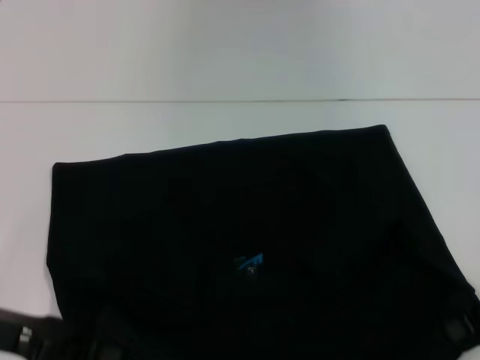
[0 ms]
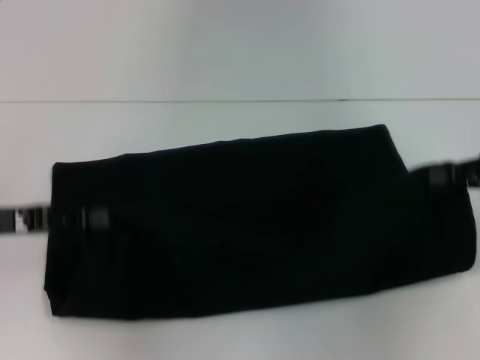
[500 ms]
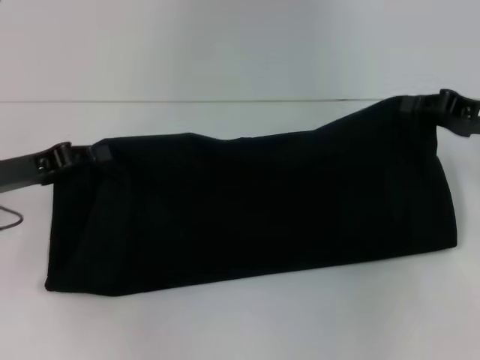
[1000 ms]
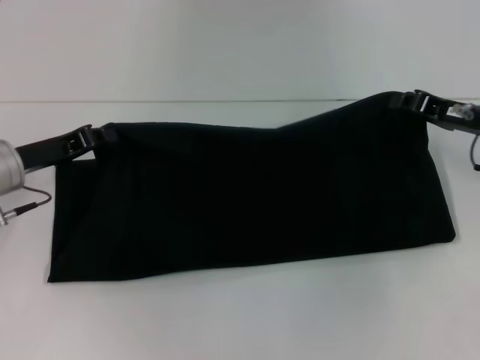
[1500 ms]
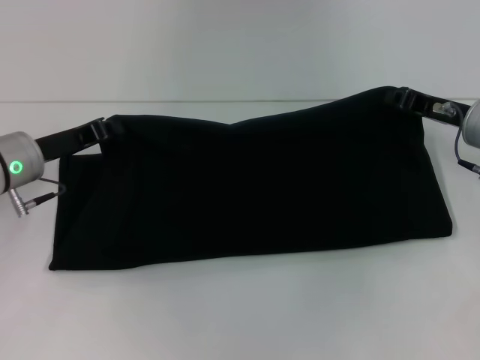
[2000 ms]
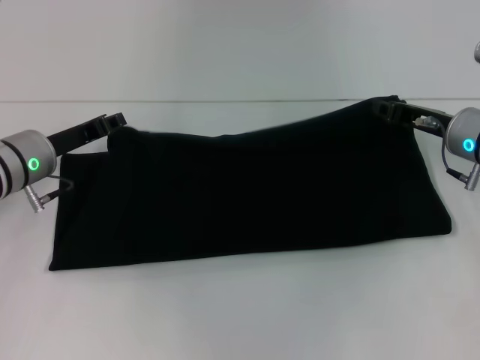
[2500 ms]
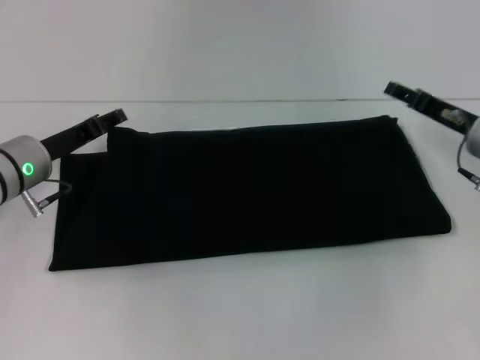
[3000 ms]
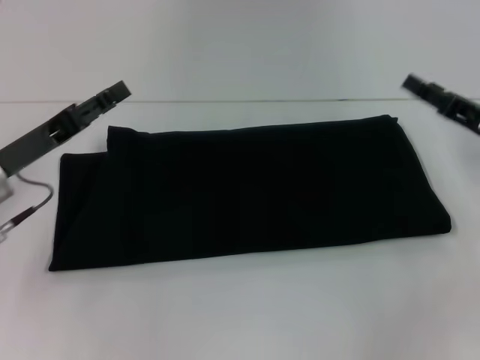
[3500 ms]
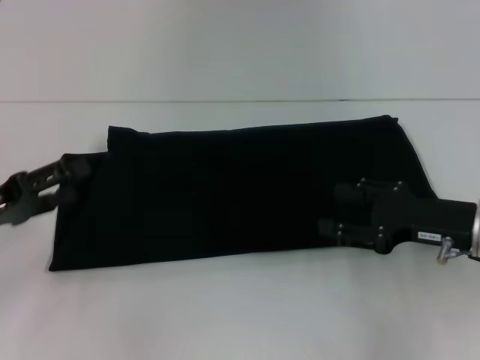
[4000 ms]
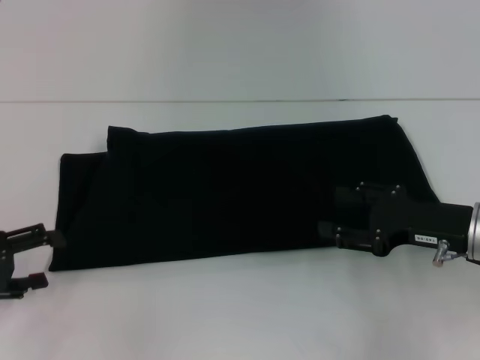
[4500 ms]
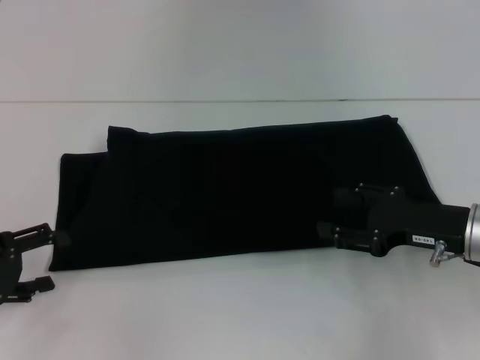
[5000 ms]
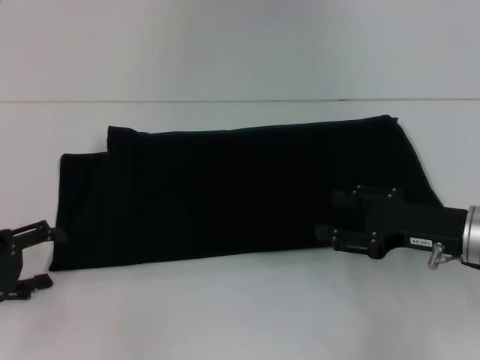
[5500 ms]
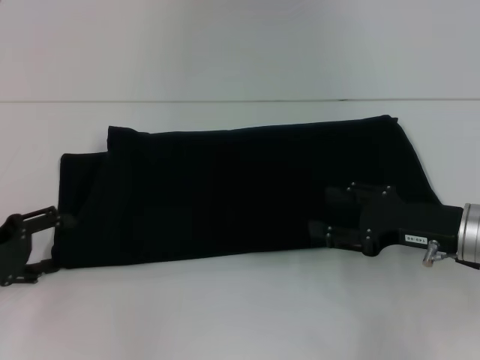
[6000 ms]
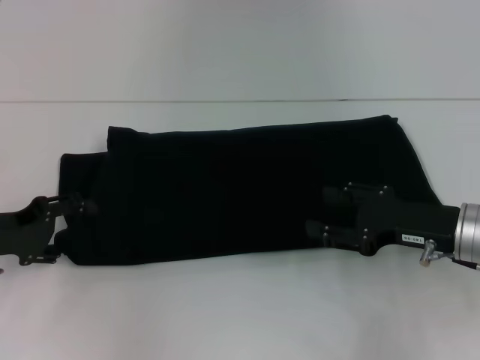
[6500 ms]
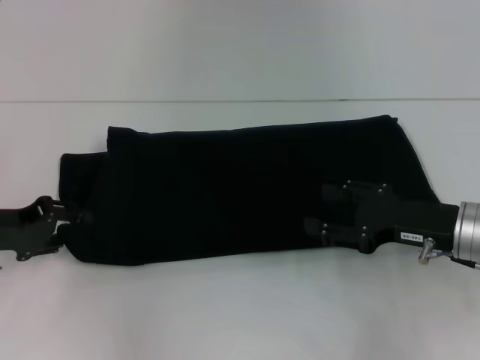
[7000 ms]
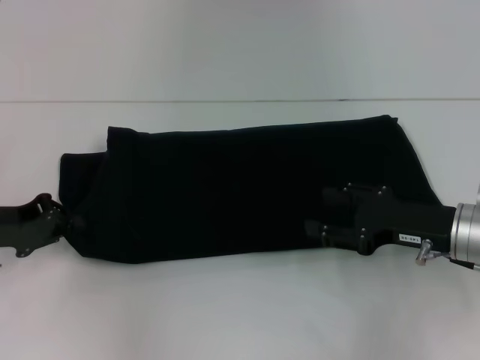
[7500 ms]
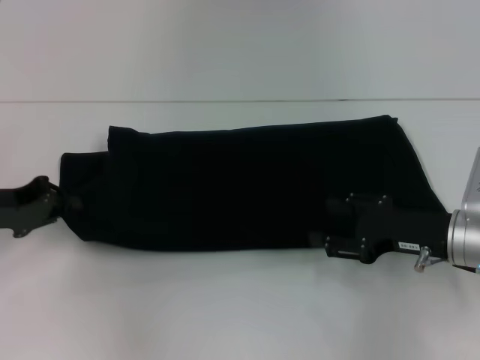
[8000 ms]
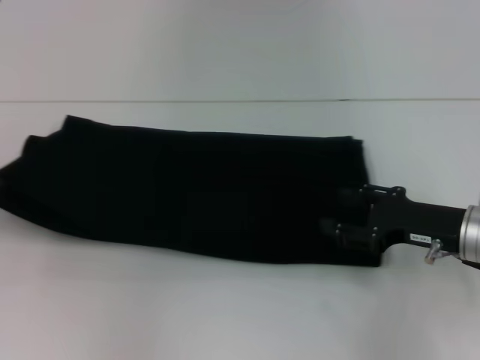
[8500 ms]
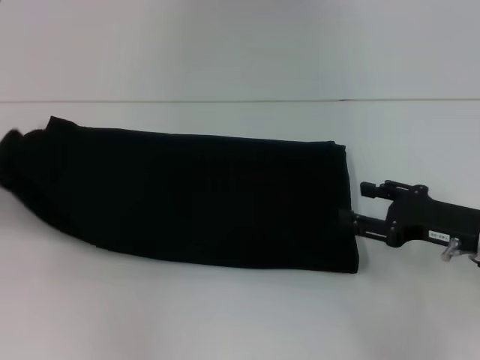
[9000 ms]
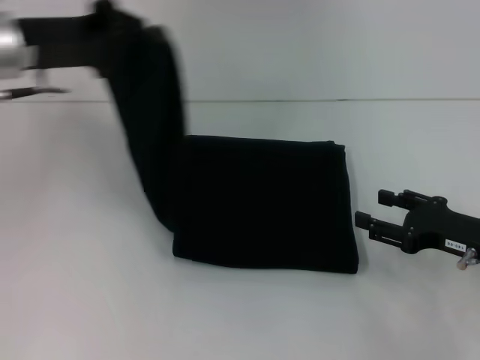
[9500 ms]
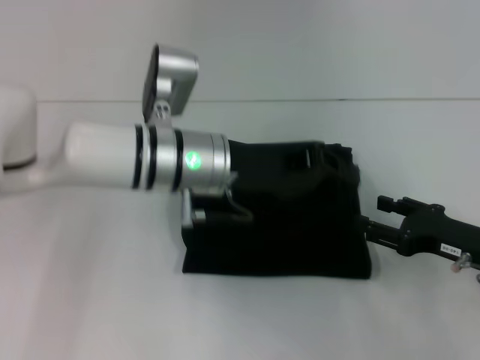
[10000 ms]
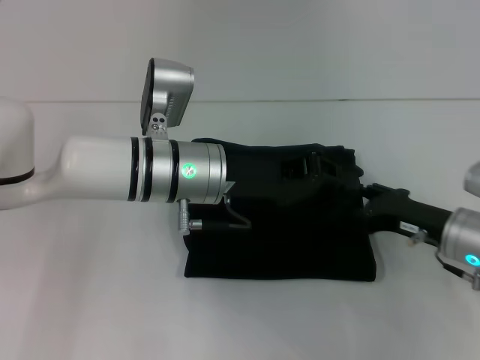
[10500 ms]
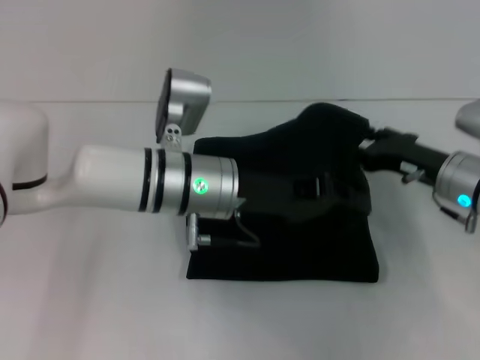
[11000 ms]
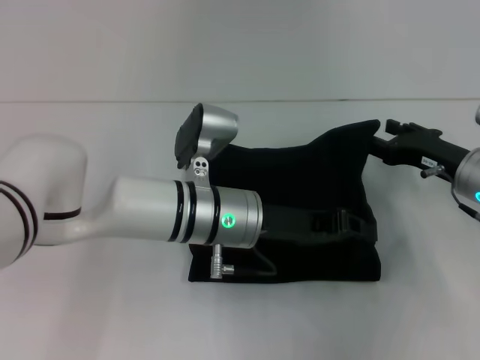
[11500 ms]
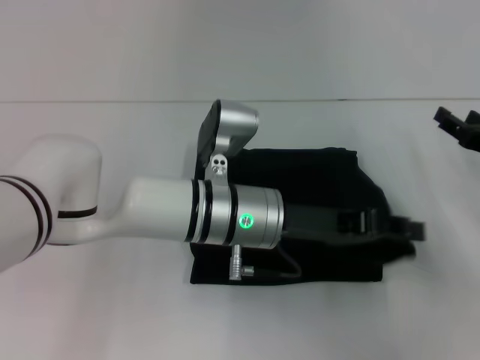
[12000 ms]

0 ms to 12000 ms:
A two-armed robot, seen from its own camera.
Step, 0 ms to 3000 ms: Fold the clothes with your right hand.
0 ms to 2000 ms: The left gripper goes roughly 15 cm forward. Meanwhile the right gripper goes some 15 cm forward and to the left.
2000 ms to 4000 ms: The left gripper moves backward and to the left, about 10 cm, and opens up, while the right gripper is displaced backward by about 10 cm, and opens.
6000 ms to 8000 ms: The left gripper shifts by roughly 5 cm, and closes.
8000 ms to 10000 ms: The right gripper moves approximately 5 cm; the left gripper heads to the right, covering roughly 25 cm.
10000 ms to 12000 ms: The right gripper shifts some 5 cm forward, while the left gripper moves to the right, about 5 cm.

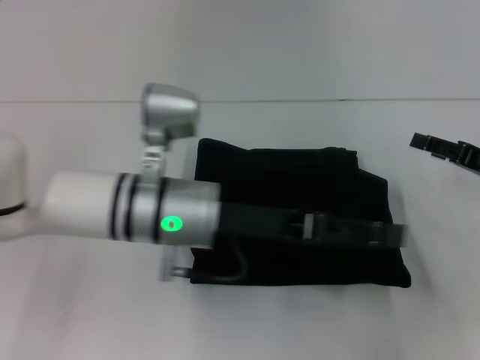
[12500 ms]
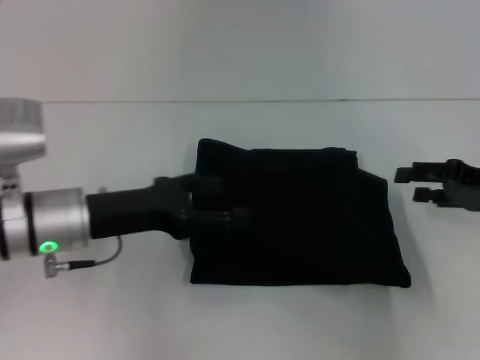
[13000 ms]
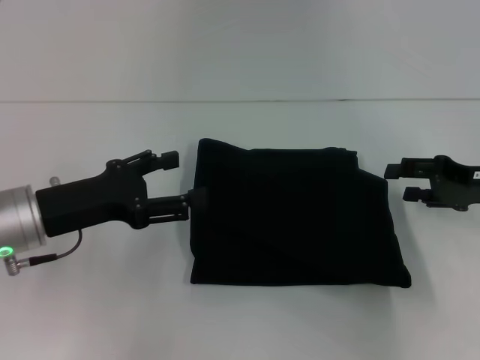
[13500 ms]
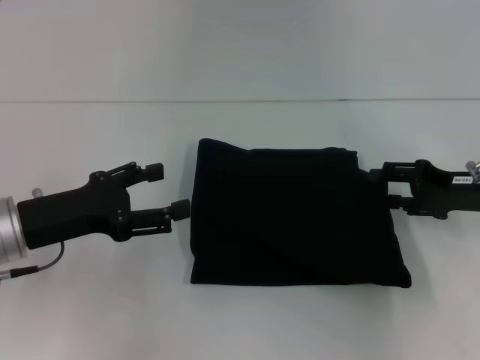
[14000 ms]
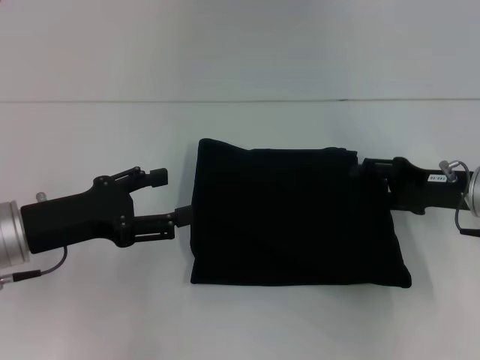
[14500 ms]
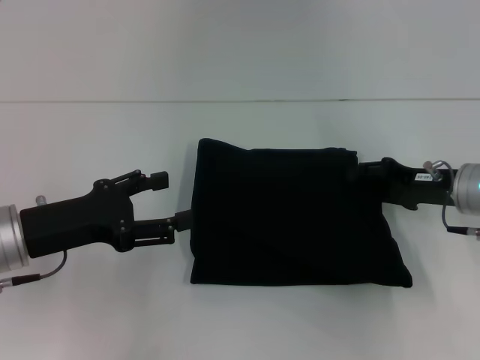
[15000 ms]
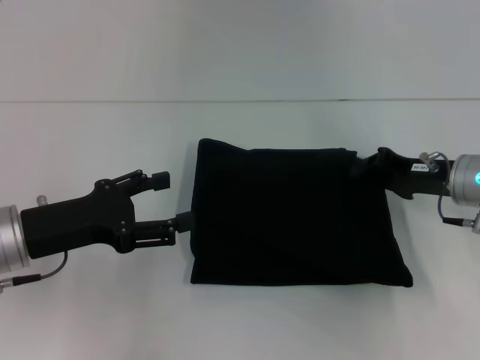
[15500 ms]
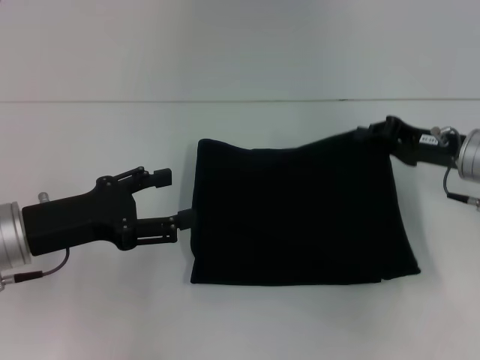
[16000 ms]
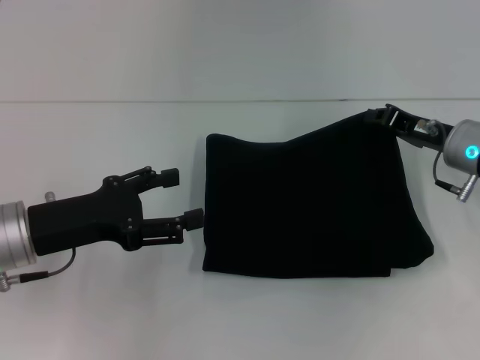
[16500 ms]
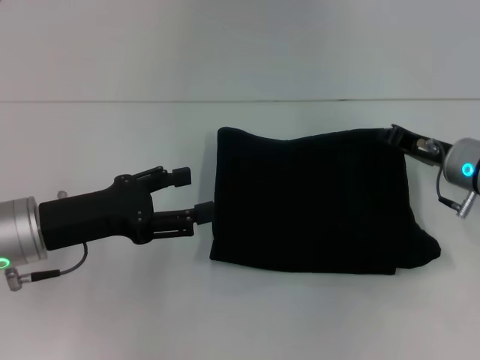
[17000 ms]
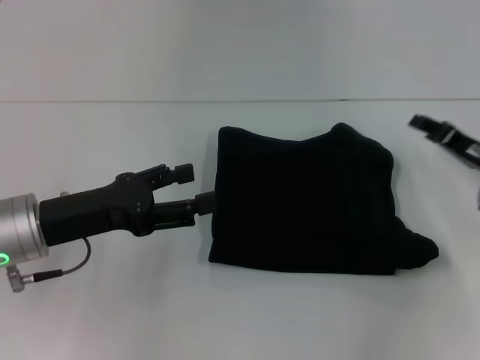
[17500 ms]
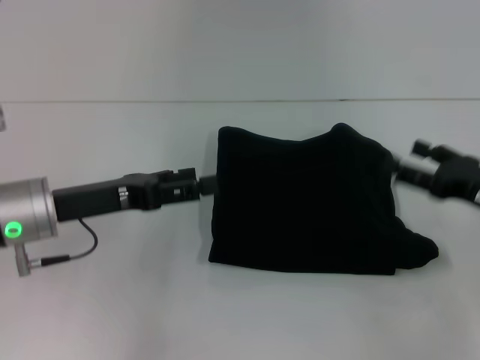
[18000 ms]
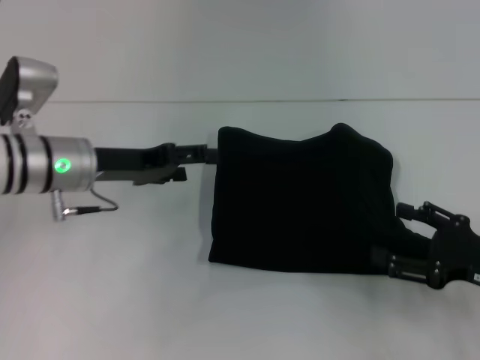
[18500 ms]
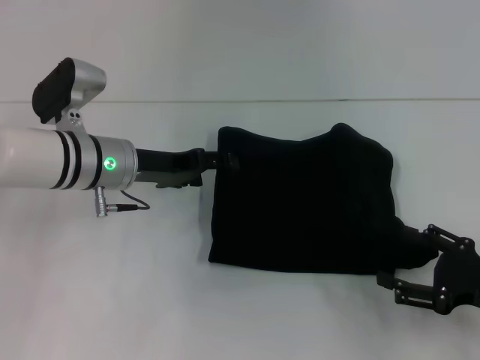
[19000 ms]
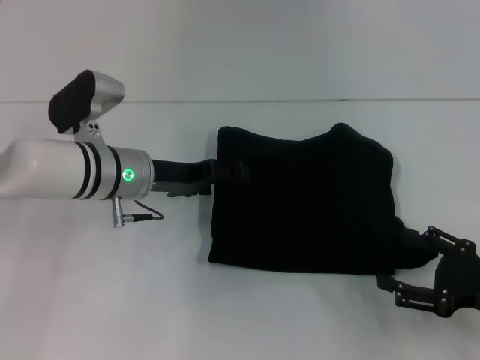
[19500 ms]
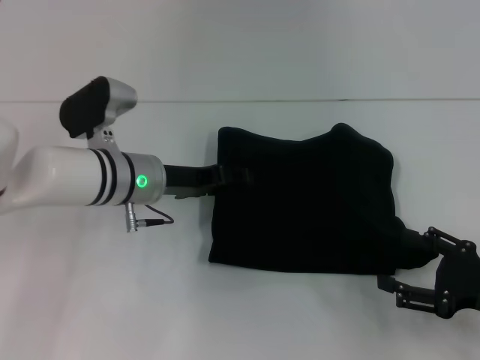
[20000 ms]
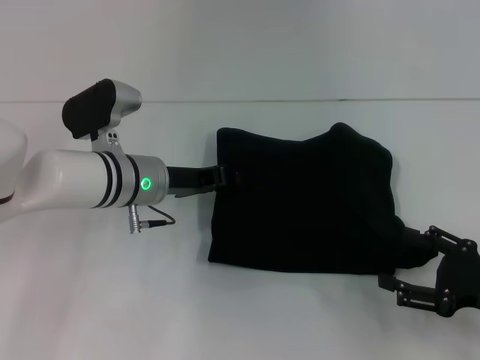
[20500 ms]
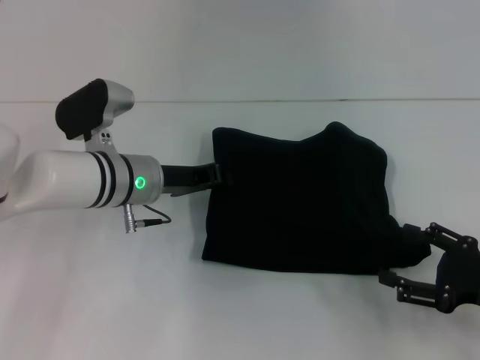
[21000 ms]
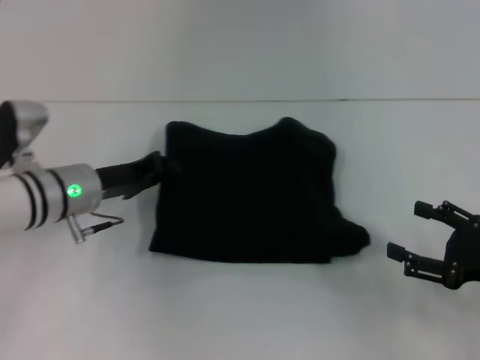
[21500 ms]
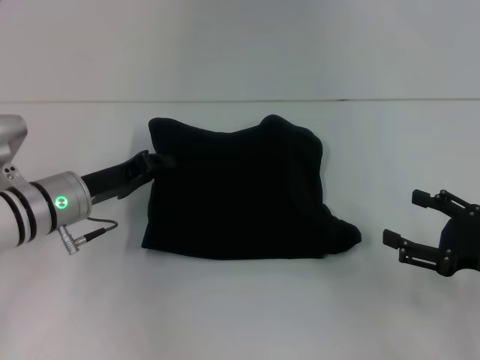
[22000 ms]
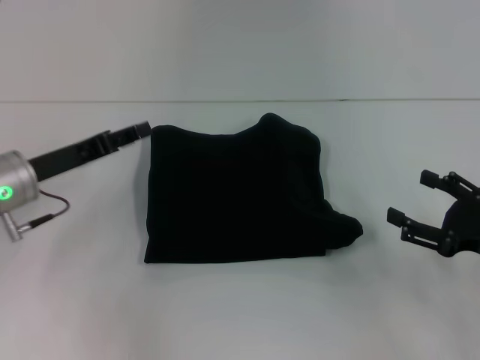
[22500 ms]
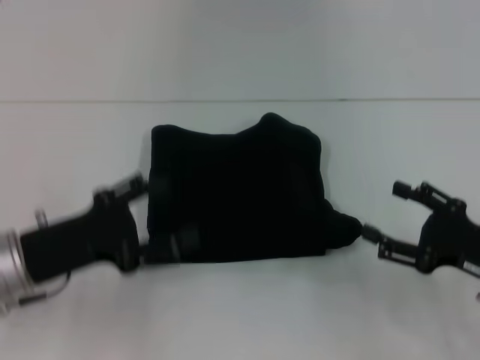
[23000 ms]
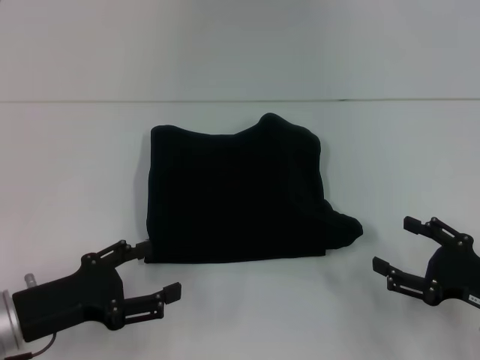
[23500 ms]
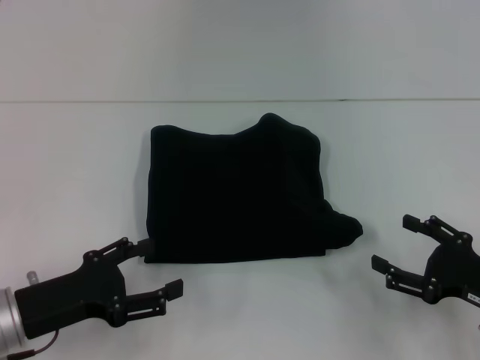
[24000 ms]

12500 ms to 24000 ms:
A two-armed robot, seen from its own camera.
12500 ms to 14500 ms: The right gripper heads to the left, covering about 5 cm. Meanwhile the left gripper heads to the left, covering some 15 cm.
14500 ms to 16500 ms: The right gripper closes.
16500 ms to 18500 ms: The left gripper heads forward, covering approximately 10 cm; the right gripper is displaced backward and to the right by approximately 15 cm, and opens.
18500 ms to 20000 ms: The left gripper is displaced to the right by roughly 5 cm.
20000 ms to 22000 ms: The left gripper travels to the left by approximately 10 cm, and closes.
22000 ms to 24000 ms: The left gripper moves backward, some 15 cm, and opens.

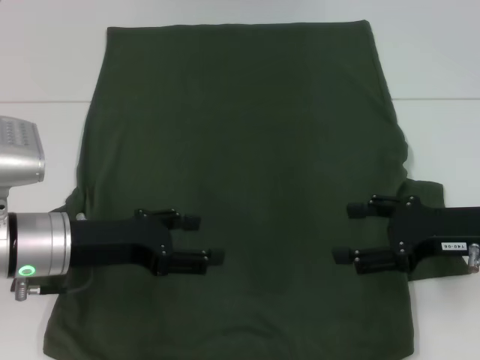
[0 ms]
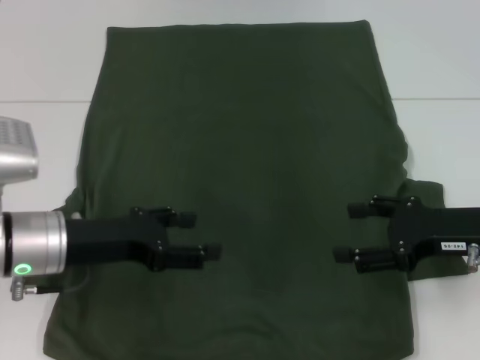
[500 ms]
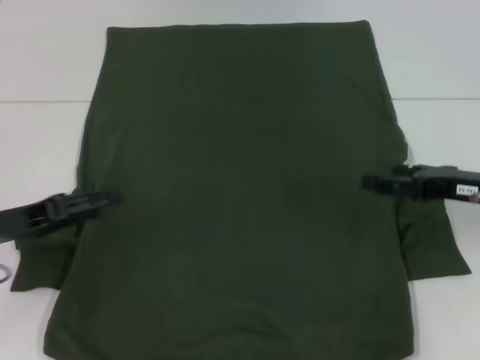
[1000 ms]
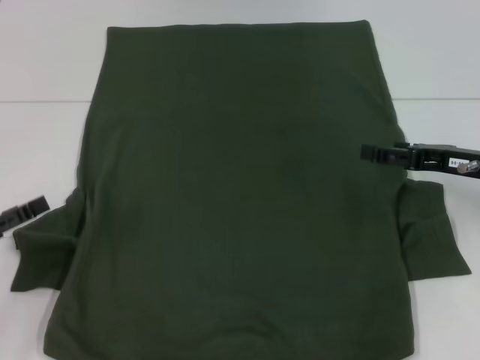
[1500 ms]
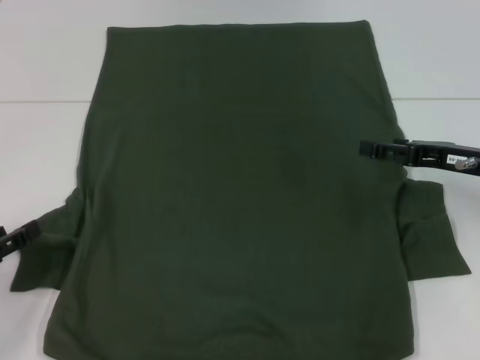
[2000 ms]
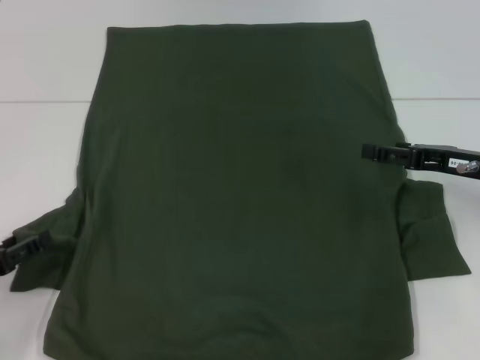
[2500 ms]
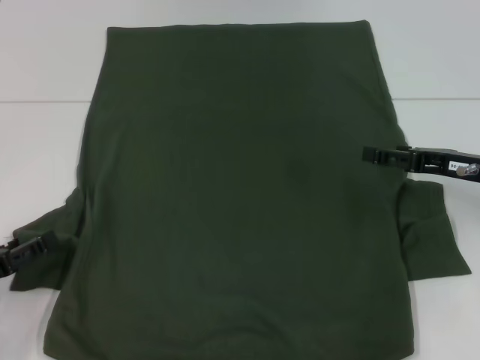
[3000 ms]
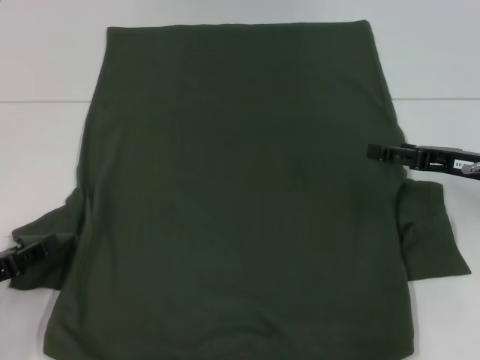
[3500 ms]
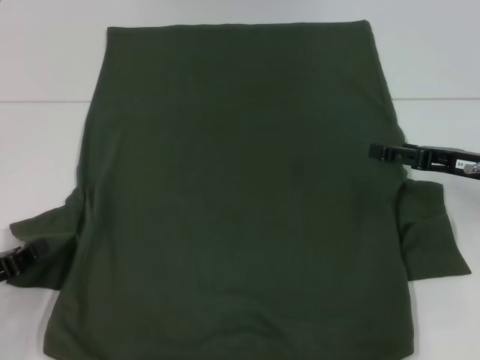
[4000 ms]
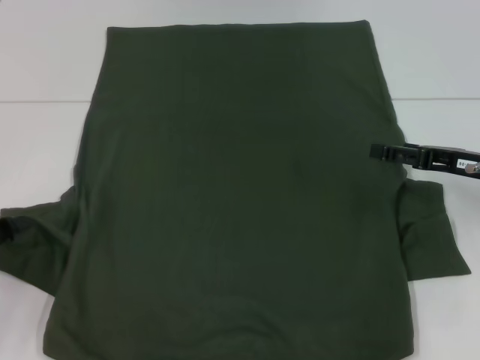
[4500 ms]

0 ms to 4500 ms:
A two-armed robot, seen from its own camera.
0 ms to 2000 ms: The left gripper is displaced to the left and backward by about 15 cm. The right gripper shifts roughly 5 cm forward.
2000 ms to 4500 ms: The left gripper closes.
